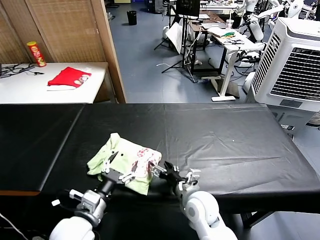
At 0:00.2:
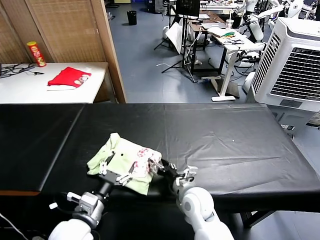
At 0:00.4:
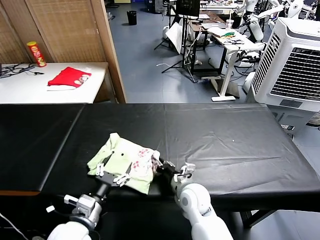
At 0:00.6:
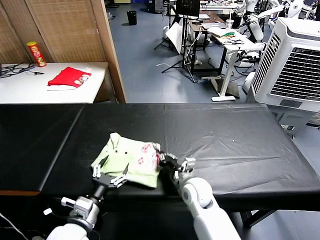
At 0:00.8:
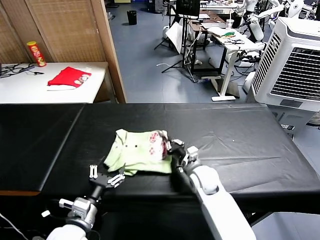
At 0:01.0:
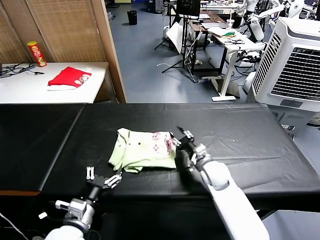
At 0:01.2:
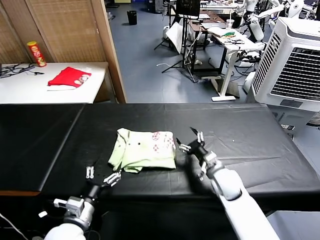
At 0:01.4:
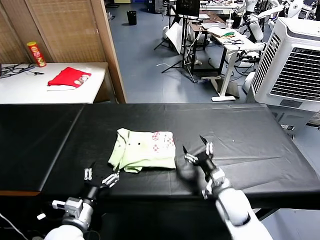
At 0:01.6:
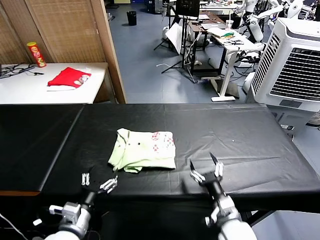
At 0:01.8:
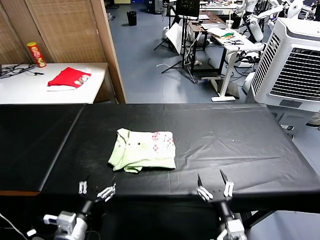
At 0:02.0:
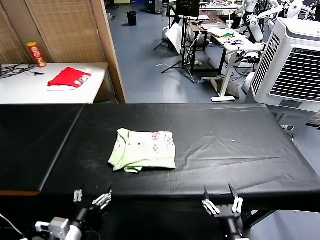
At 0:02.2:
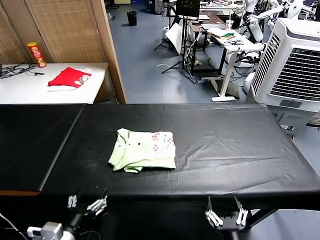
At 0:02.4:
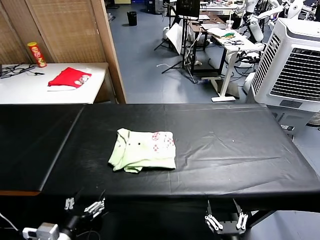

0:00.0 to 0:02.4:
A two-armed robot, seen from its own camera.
Task of the whole recording: fold and organize the clothes.
Step, 0:00.0 to 0:00.8: Drag the clothes to the center of the table.
0:00.0 to 0:01.2: The right gripper travels forward and to the right by approximately 15 cm, and closes, then opens again.
0:01.2 to 0:02.4: The right gripper is displaced backward by roughly 35 cm; the left gripper moves backward, about 10 cm.
